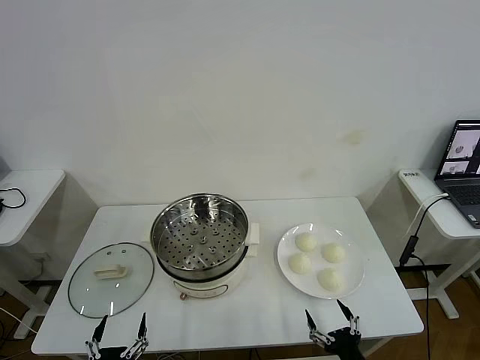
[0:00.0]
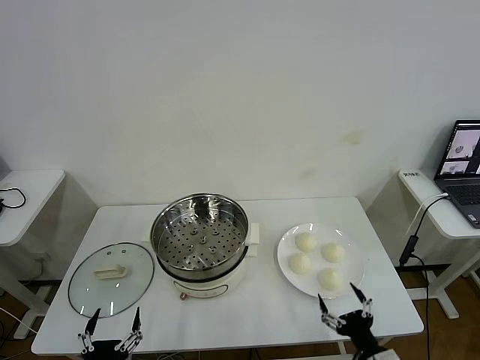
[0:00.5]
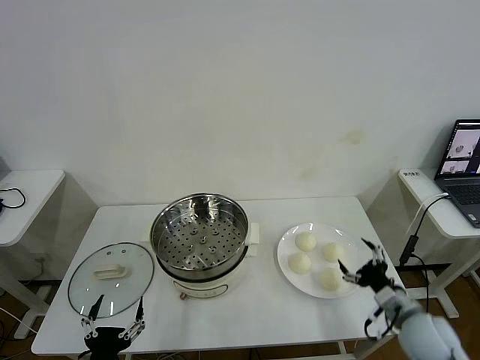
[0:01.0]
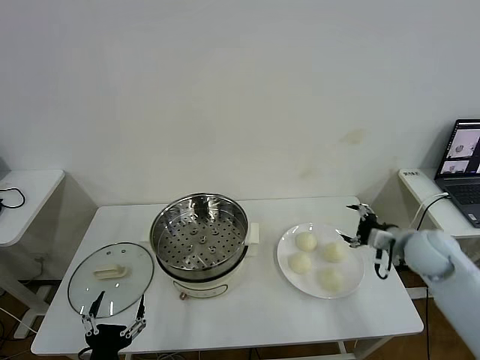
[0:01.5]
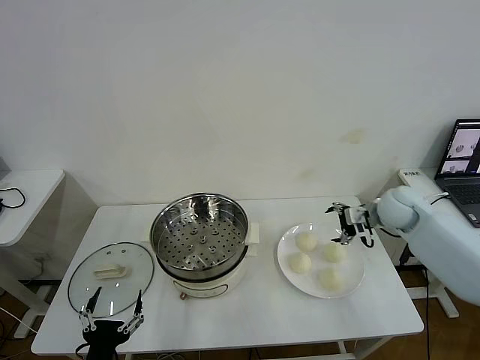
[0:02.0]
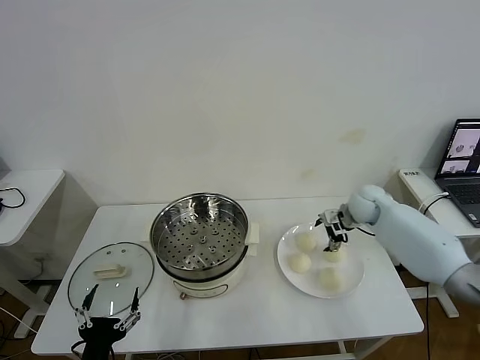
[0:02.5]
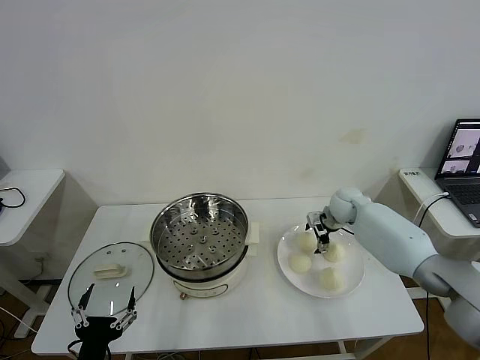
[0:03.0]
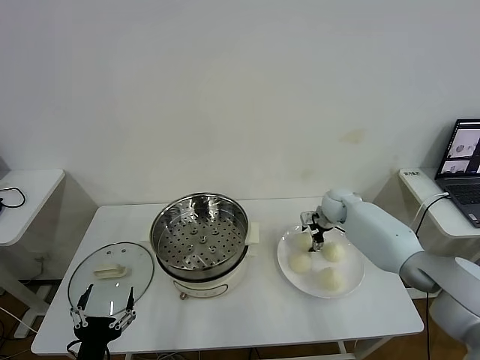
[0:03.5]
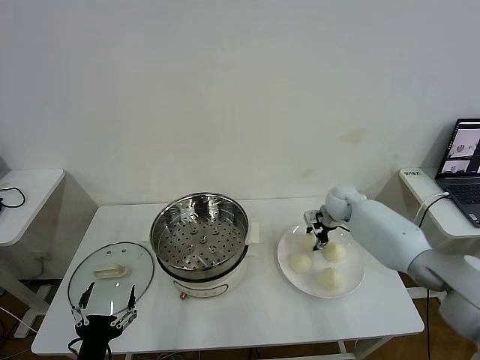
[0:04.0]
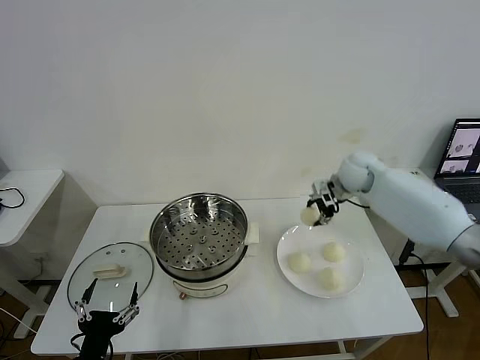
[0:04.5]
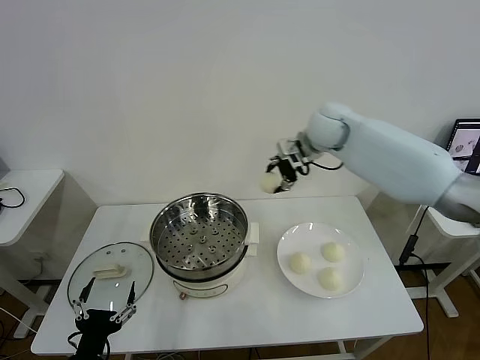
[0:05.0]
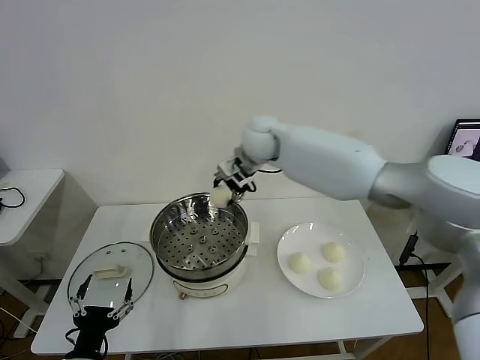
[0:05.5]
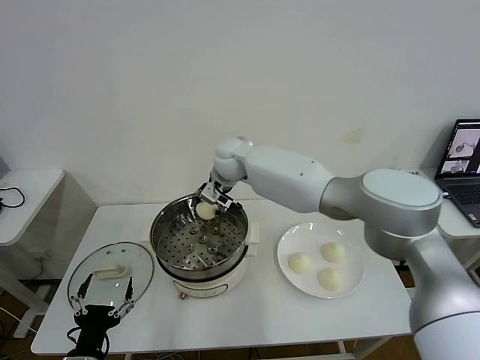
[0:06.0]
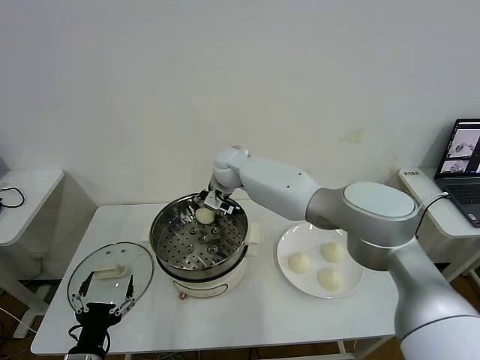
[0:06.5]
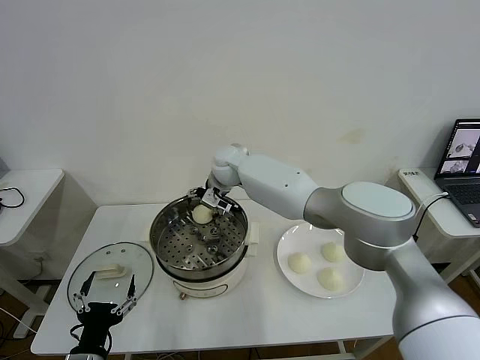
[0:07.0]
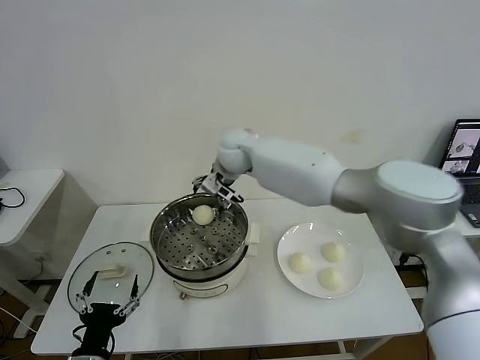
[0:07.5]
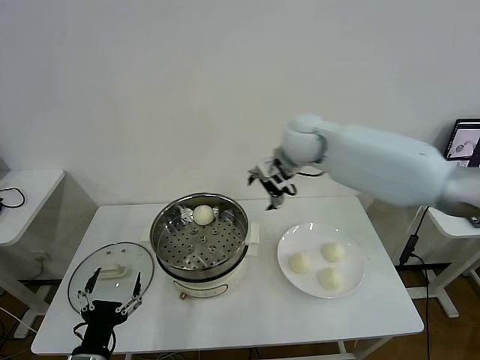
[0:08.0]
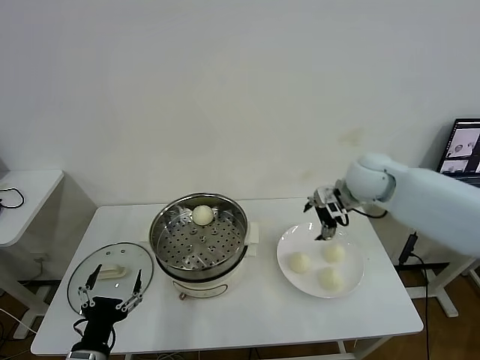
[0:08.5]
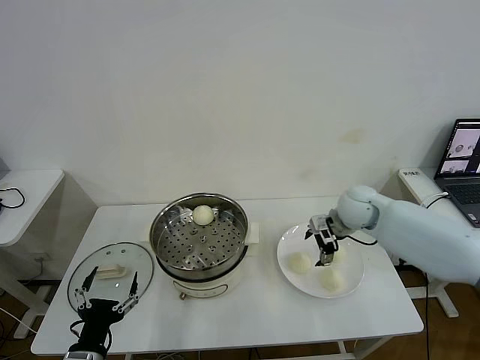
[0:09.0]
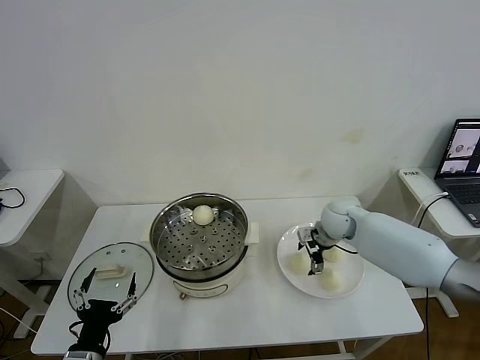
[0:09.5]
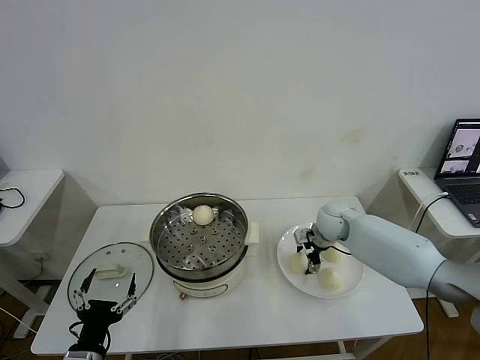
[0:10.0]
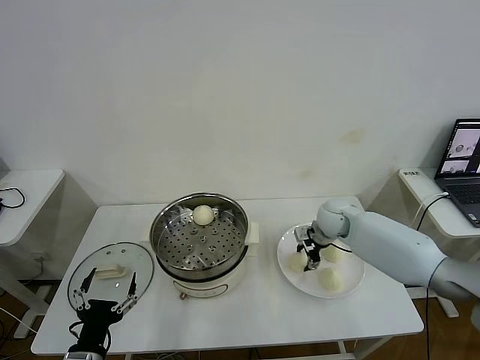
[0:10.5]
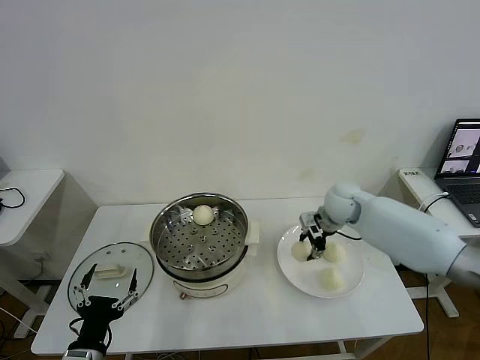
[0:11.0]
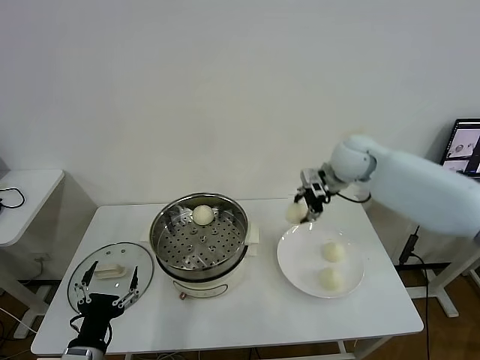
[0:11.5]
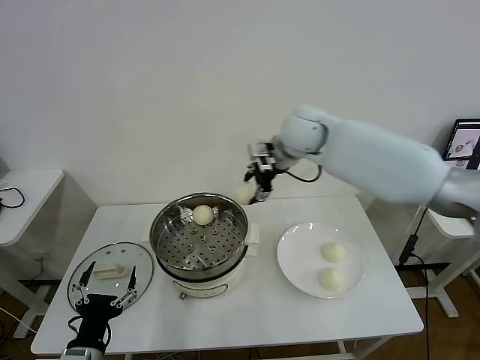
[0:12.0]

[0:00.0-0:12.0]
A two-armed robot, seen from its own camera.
Task of the whole recording: take steamed baozi put them in steamer then cover it.
Step, 0.0 to 3.5 s: Grasp the baozi in the plate with right gripper.
Step, 4.0 to 7.0 s: Place the baozi on the steamer with right gripper.
Step, 7.5 to 10.0 s: Grasp the baozi in the plate with right gripper.
2.0 to 4.0 s: The right gripper is displaced forward and to the left by approximately 10 cm, and closes its fingers.
4.0 to 6.0 s: The right gripper shifts roughly 30 cm to the left.
6.0 to 8.0 s: The right gripper heads to the right and upward, covering about 20 cm, and opens up.
8.0 to 10.0 s: The right gripper heads downward, covering roughly 20 cm, and closes its fingers.
10.0 to 12.0 s: The right gripper goes some 30 cm upward and to the left.

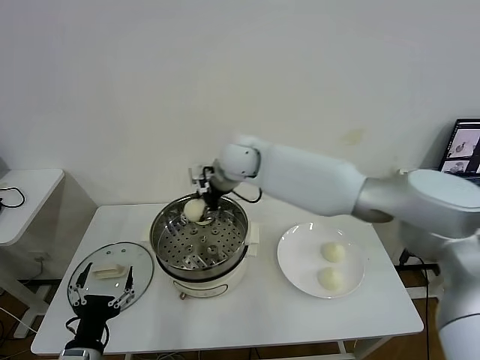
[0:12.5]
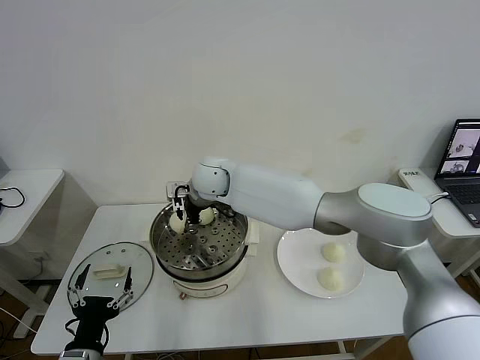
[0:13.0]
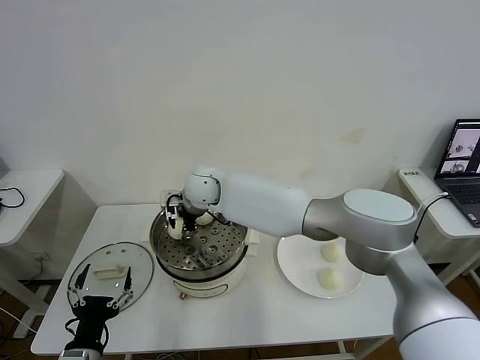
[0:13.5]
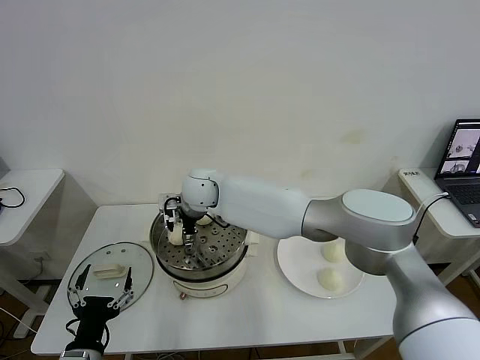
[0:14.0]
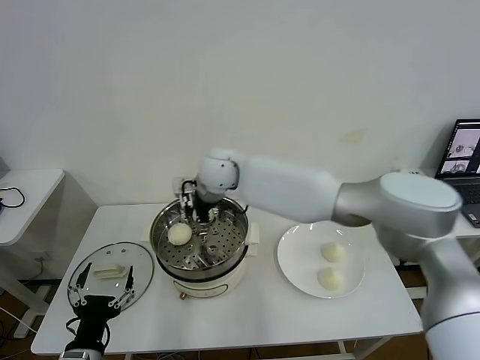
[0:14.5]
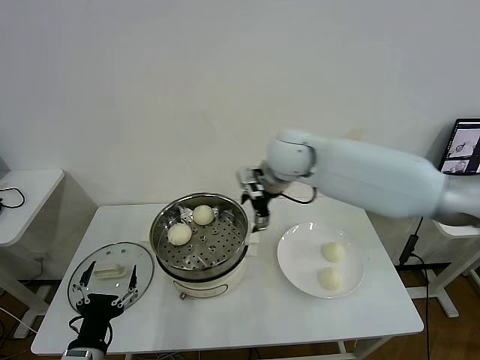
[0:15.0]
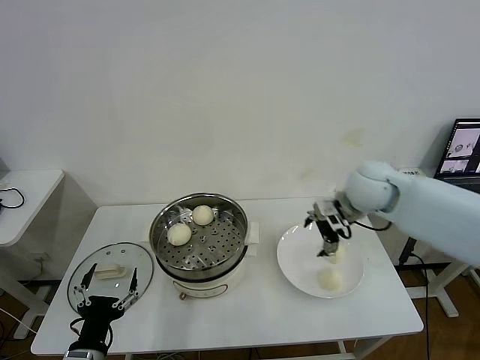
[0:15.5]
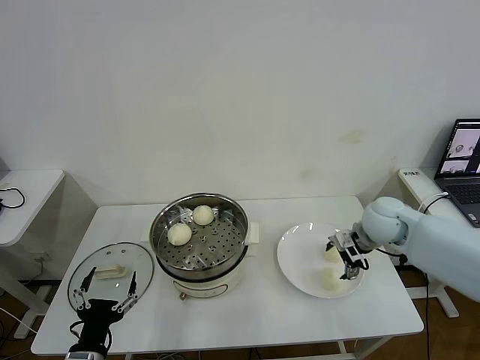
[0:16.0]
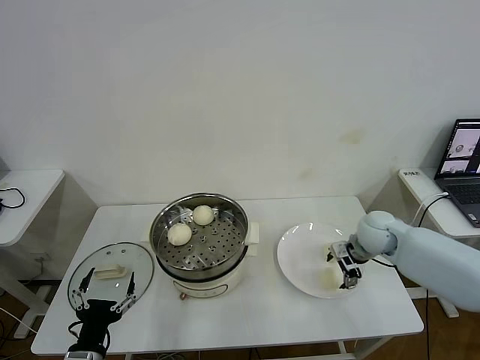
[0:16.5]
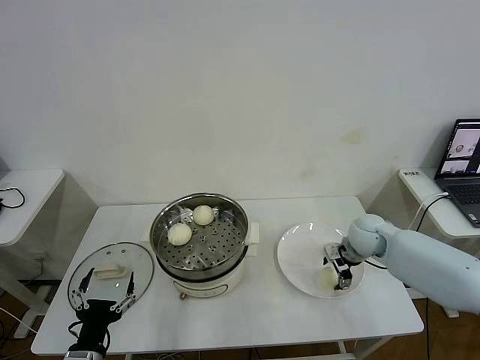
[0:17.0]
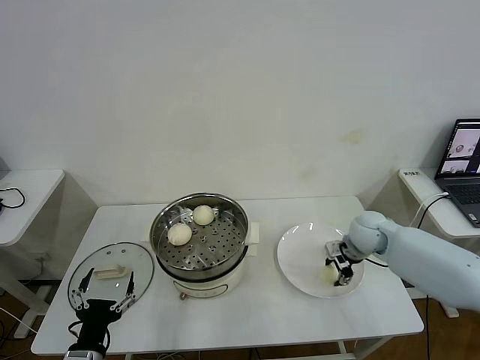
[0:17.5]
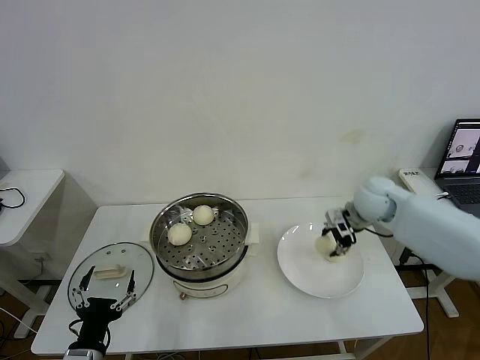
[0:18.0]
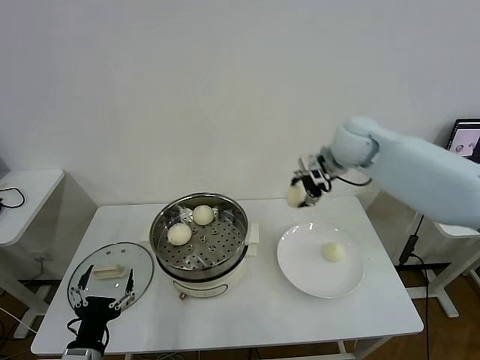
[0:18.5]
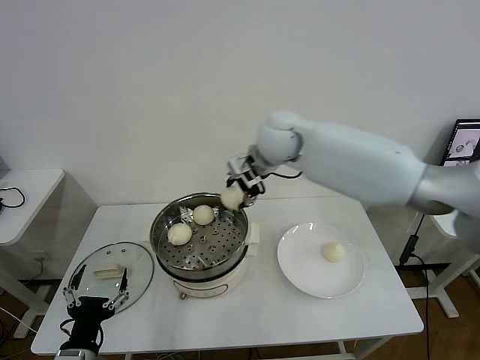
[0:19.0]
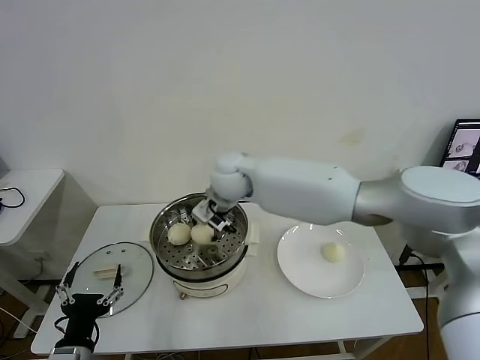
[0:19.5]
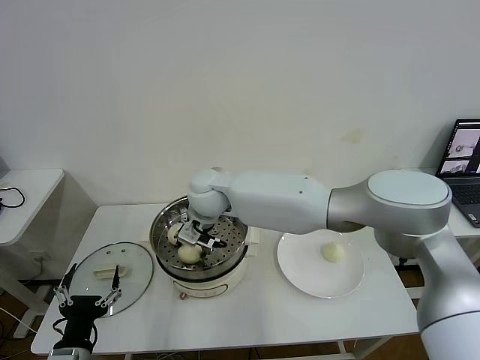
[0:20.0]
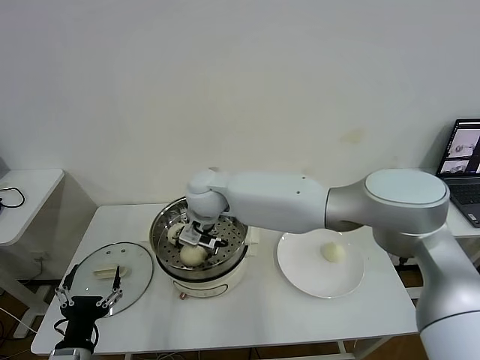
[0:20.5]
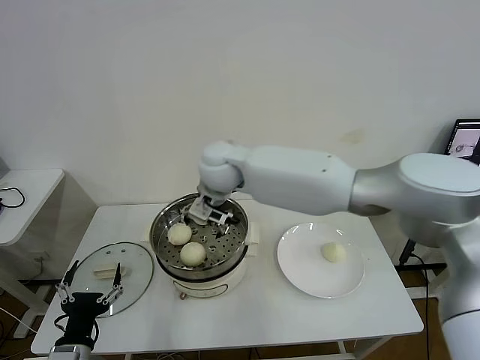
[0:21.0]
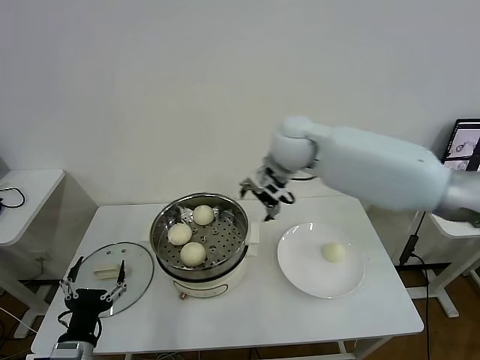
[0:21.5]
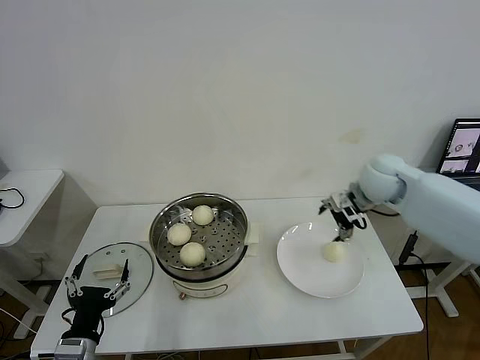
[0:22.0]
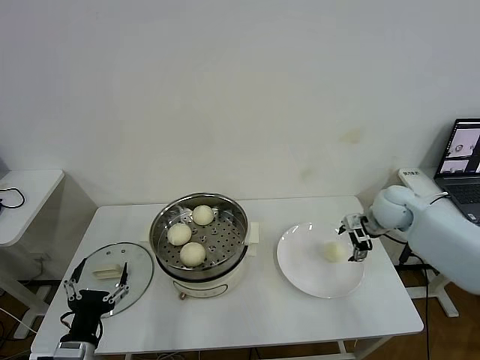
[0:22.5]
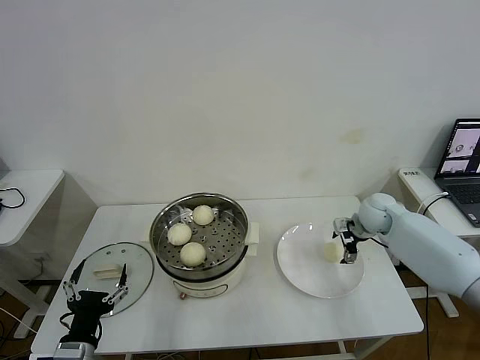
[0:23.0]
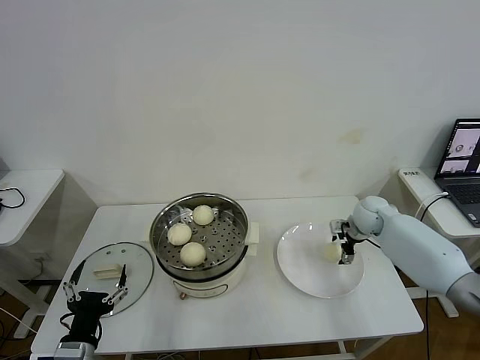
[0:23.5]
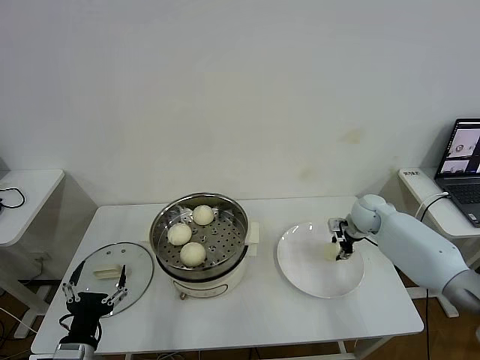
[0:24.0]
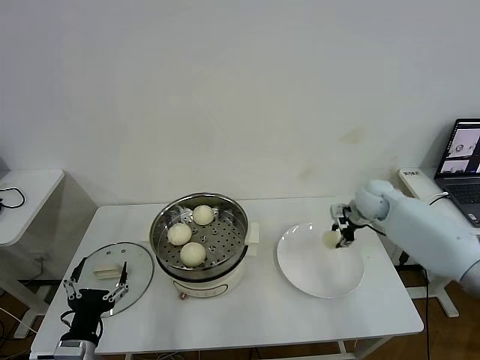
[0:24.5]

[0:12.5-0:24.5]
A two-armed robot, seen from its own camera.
Task of the whole recording: take steamed baozi put them in steamer then cover it.
Step, 14.5 to 17.0 s: Grasp the baozi in the plate with right gripper.
Step, 18.0 to 20.5 s: Place the baozi on the steamer with right gripper.
Step, 21.0 to 24.0 s: Grasp the baozi in the plate with right gripper.
12.5 to 14.5 s: The right gripper opens.
14.5 to 16.5 s: The right gripper is displaced to the right and downward by about 40 cm.
16.5 to 18.5 s: The right gripper travels upward and to the left by roughly 25 cm, and closes up.
18.5 to 20.5 s: The right gripper goes about 30 cm to the left, and opens its fingers.
20.5 to 22.5 s: The right gripper shifts about 40 cm to the right.
22.5 to 24.5 s: The right gripper closes its fingers.

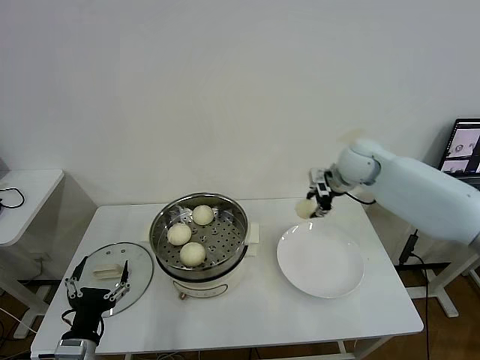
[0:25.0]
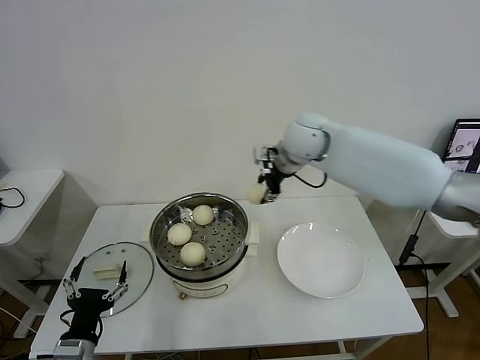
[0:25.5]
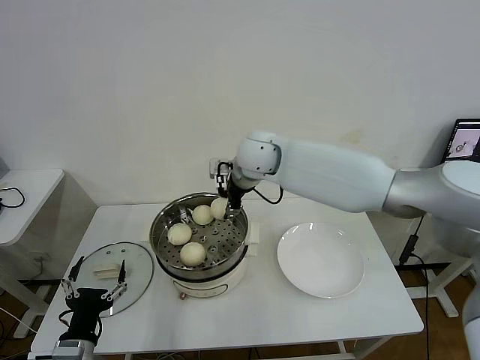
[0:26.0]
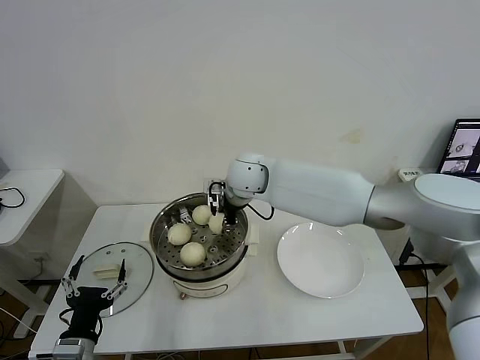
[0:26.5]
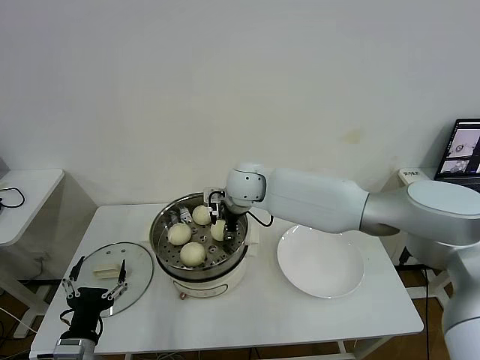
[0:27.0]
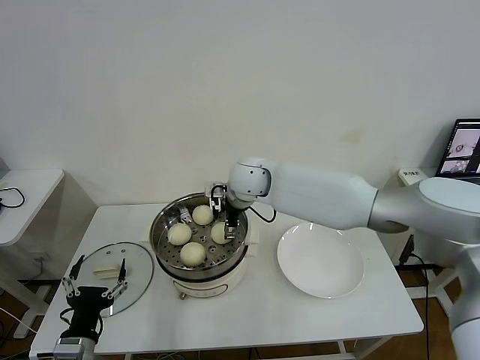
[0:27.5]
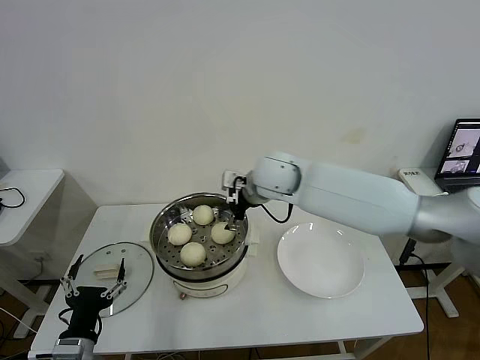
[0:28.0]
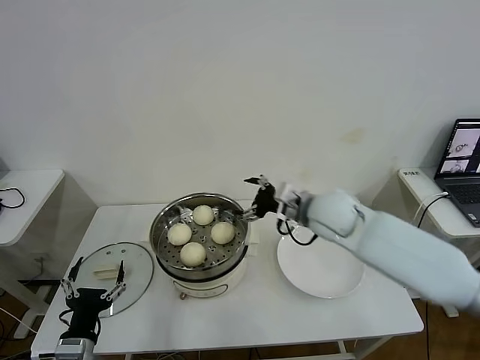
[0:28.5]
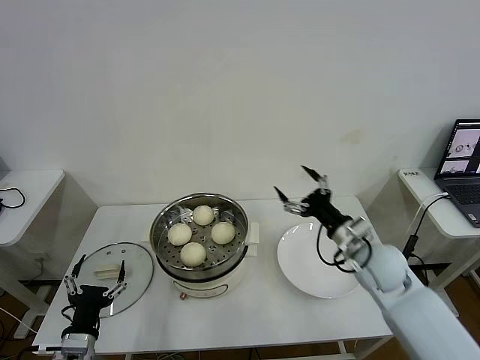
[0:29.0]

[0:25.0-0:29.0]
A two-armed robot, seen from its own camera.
Task of the whole recording: take steamed baozi put them in steamer then cover it.
Step, 25.0 to 27.5 s: Place the baozi on the steamer with right gripper.
25.0 to 27.0 s: The right gripper is displaced to the left by roughly 25 cm.
27.0 to 29.0 s: The right gripper shifts approximately 30 cm to the right and backward, and opens.
